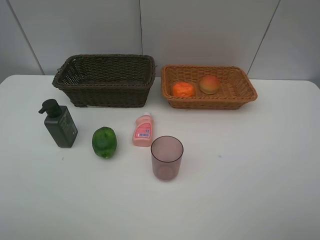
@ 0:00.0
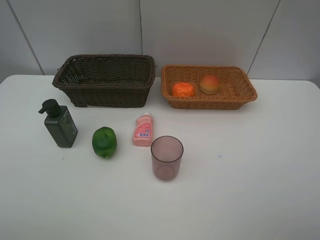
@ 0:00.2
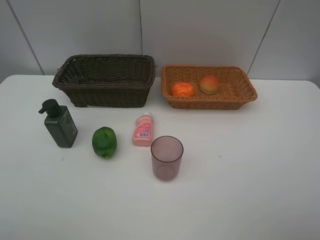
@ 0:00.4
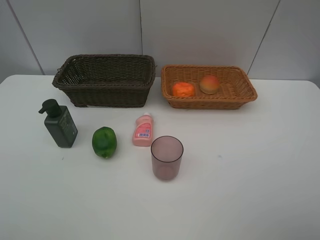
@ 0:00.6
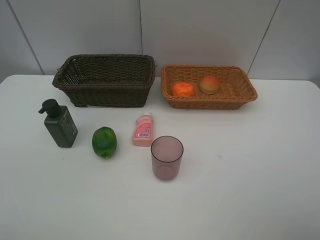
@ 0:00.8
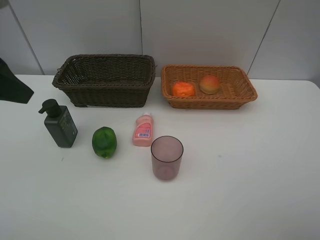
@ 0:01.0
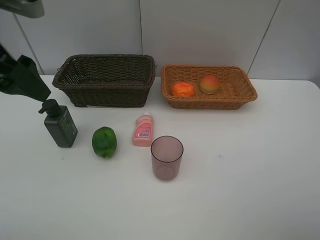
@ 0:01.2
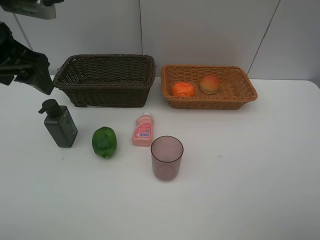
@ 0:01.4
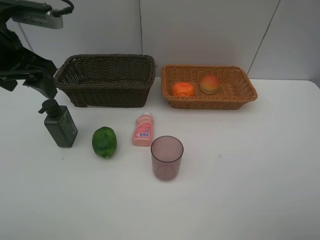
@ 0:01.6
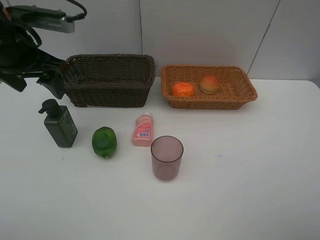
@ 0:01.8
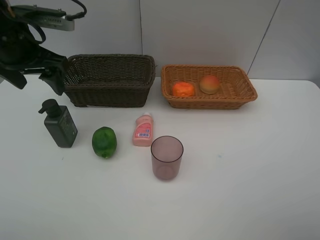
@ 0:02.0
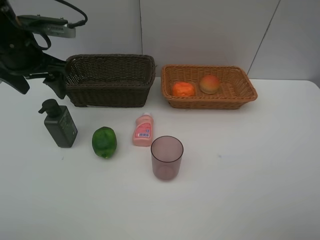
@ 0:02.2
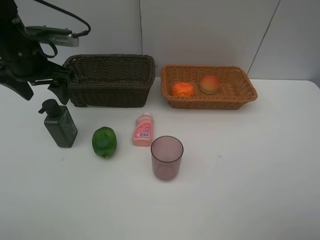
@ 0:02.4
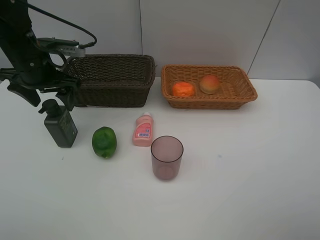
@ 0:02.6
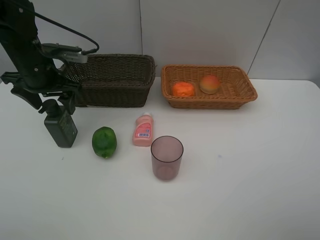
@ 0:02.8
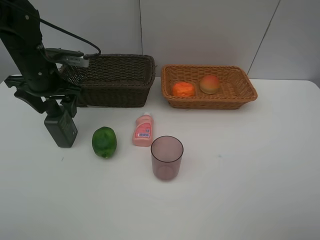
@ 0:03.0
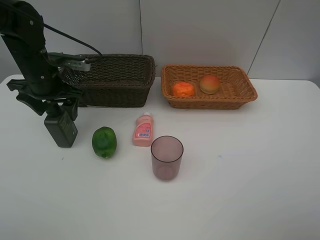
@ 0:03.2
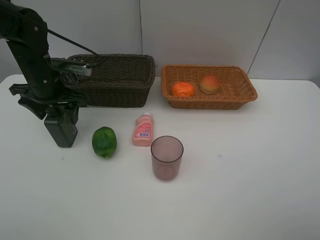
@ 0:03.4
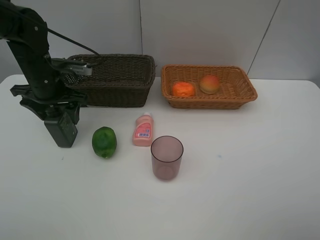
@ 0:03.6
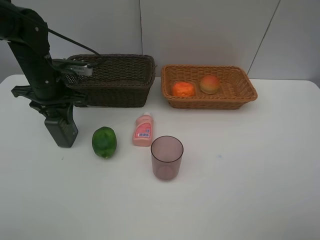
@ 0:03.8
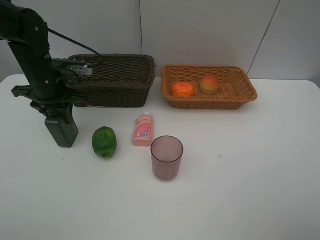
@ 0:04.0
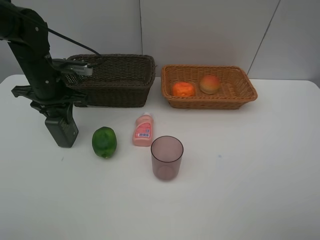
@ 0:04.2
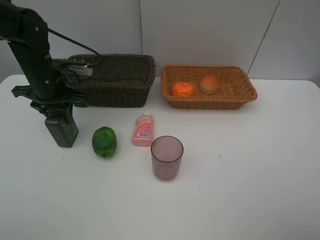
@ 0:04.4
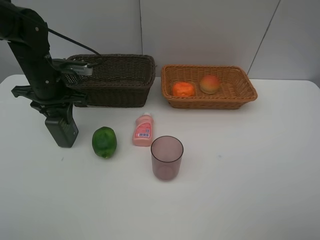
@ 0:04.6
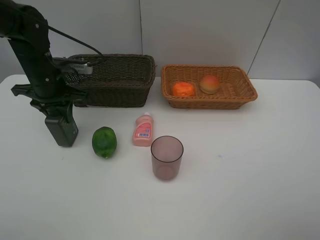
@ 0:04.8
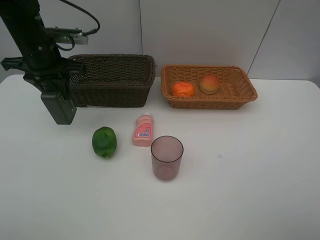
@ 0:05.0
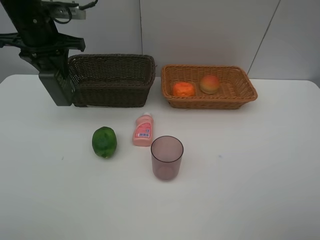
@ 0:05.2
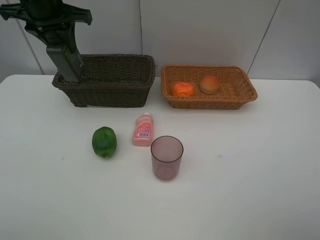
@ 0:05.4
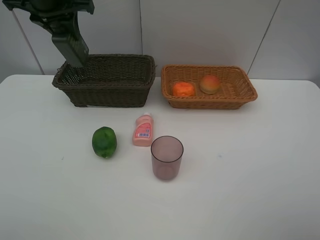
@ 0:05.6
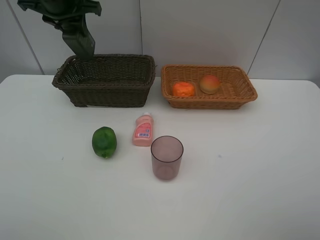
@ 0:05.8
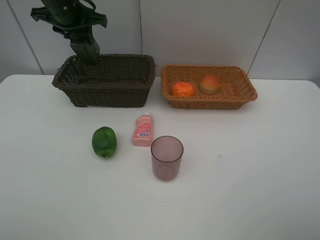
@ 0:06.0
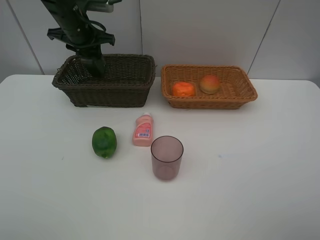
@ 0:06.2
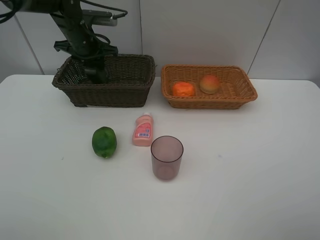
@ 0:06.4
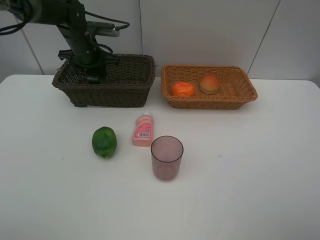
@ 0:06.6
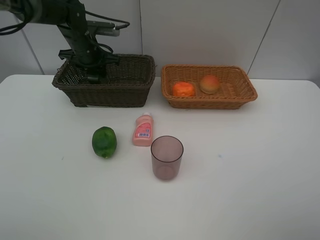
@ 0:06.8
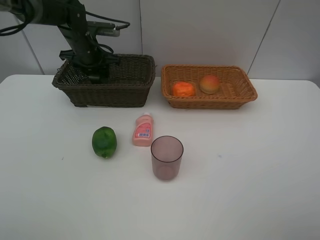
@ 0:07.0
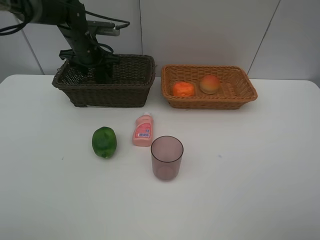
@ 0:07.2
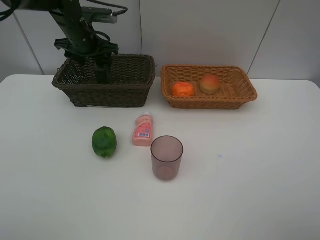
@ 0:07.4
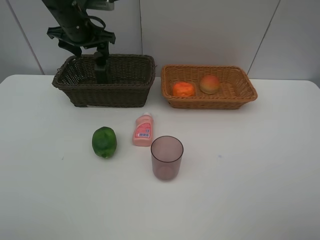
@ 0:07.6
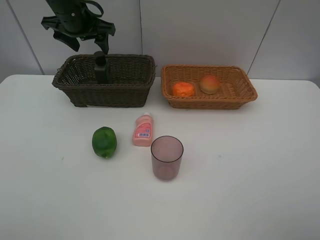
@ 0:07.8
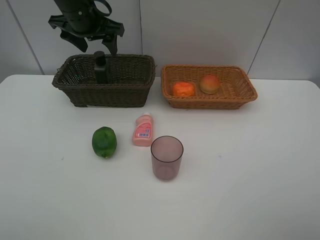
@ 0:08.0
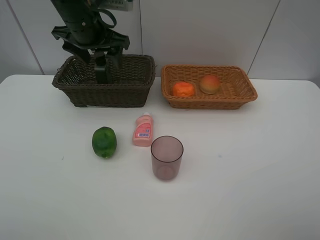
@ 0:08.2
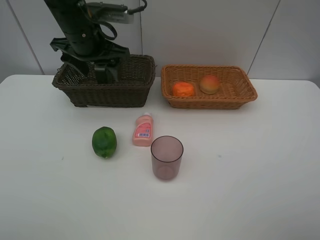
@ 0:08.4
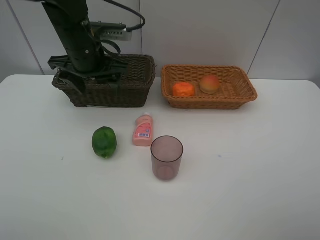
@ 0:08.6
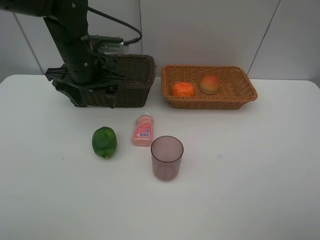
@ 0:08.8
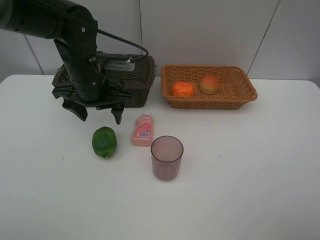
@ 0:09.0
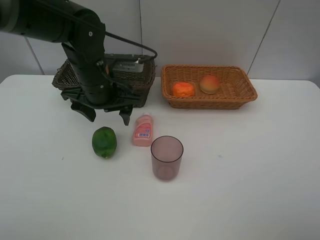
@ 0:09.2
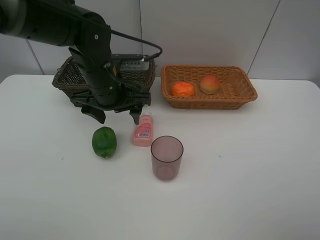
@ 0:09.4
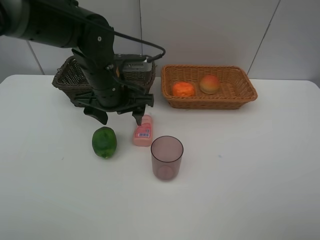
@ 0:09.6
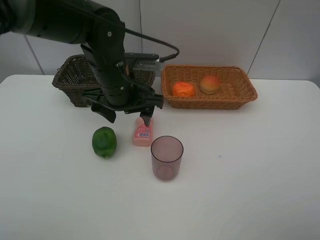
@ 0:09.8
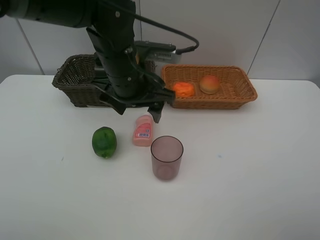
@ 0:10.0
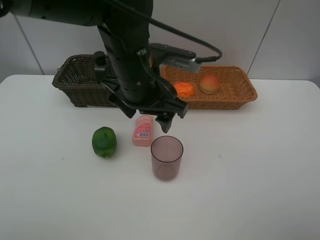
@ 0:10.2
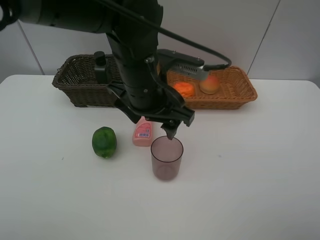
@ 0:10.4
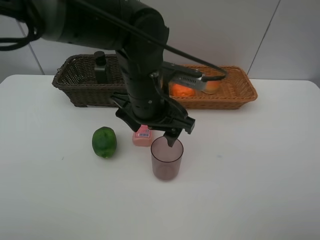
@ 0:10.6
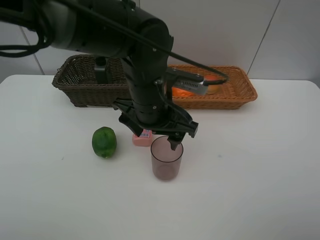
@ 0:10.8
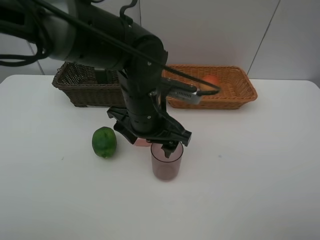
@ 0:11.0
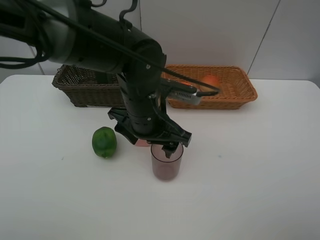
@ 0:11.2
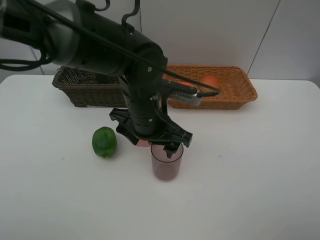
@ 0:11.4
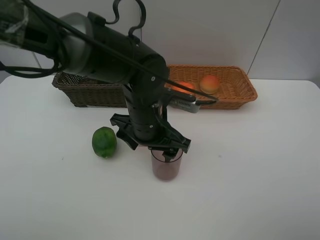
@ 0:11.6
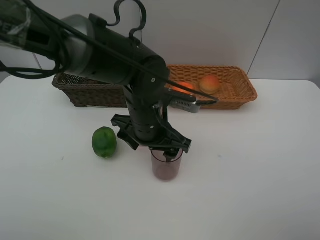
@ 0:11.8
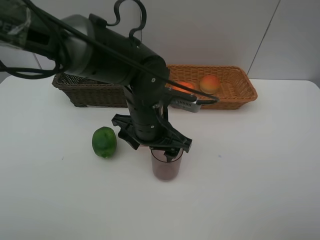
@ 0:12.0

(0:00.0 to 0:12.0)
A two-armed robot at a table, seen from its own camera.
Task of the whole recording: place multiple objects separately in different baskets.
0:00.0 - 0:01.6: The left gripper heads forward, covering approximately 30 cm.
0:01.6 - 0:03.0: The left gripper goes about 15 cm downward and forward.
0:03.0 - 0:04.4: The left gripper closes.
0:04.4 - 0:06.0: The left gripper heads upward and forward, covering roughly 15 cm.
0:06.0 - 0:07.6: The left gripper travels downward and back again, some 10 cm each way, and opens up.
0:07.6 - 0:09.0: The left gripper travels backward, to the right and downward by roughly 15 cm.
0:09.0 - 0:10.4: The left gripper moves to the right and backward, roughly 10 cm.
0:10.4 - 0:12.0: The left gripper is displaced downward by approximately 5 cm.

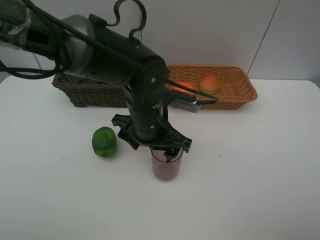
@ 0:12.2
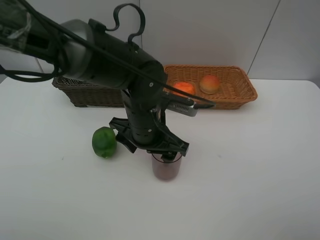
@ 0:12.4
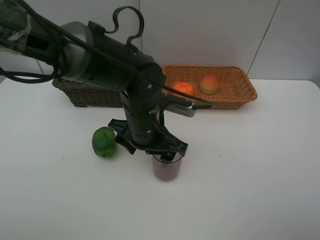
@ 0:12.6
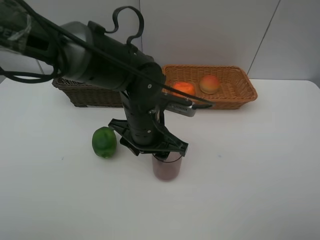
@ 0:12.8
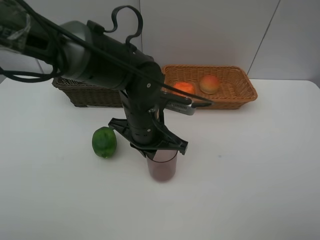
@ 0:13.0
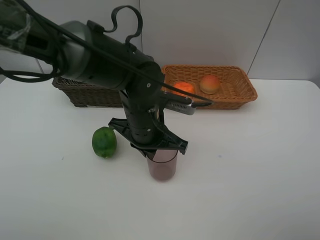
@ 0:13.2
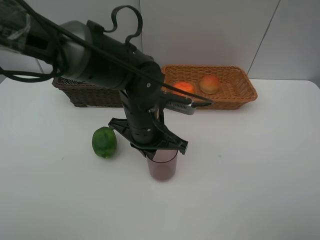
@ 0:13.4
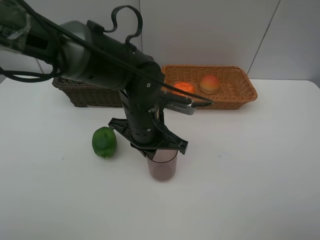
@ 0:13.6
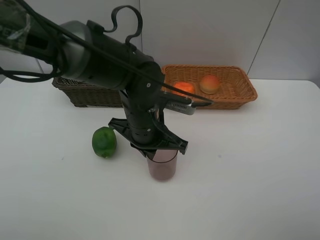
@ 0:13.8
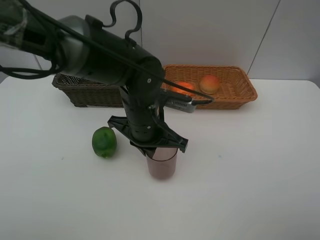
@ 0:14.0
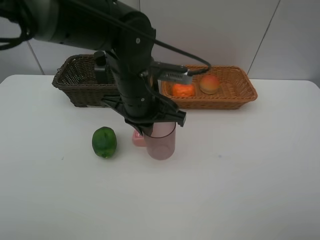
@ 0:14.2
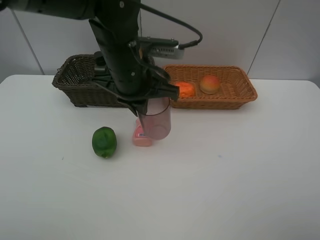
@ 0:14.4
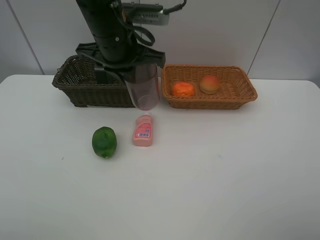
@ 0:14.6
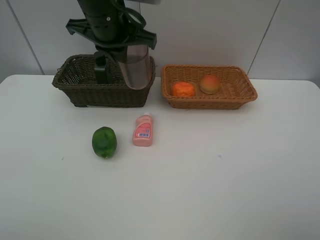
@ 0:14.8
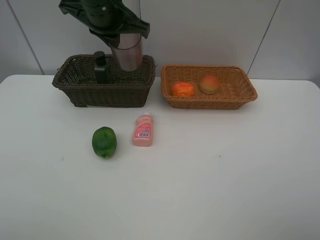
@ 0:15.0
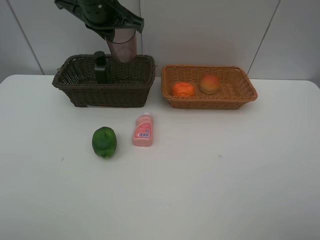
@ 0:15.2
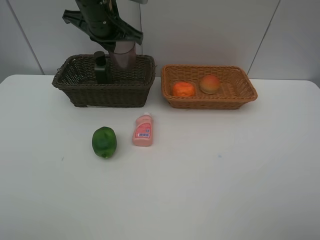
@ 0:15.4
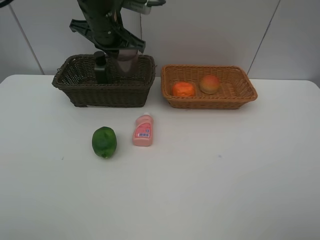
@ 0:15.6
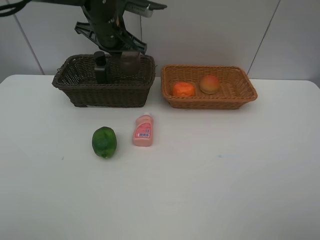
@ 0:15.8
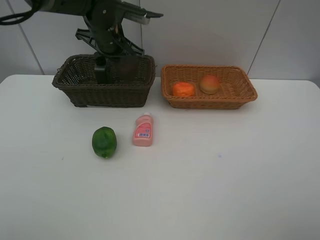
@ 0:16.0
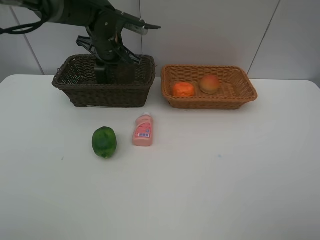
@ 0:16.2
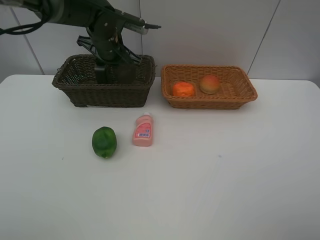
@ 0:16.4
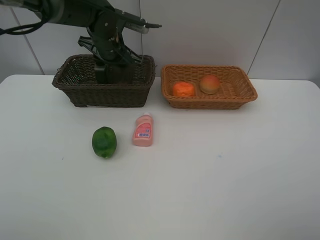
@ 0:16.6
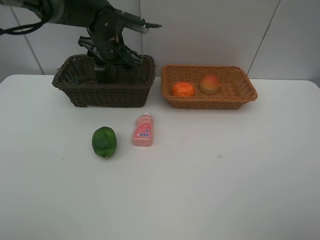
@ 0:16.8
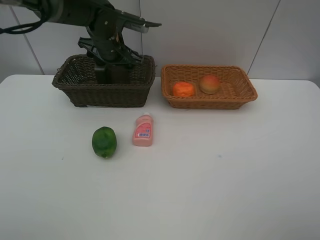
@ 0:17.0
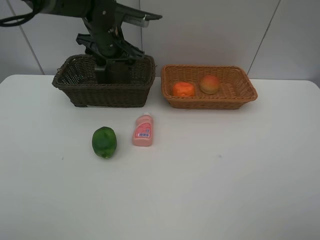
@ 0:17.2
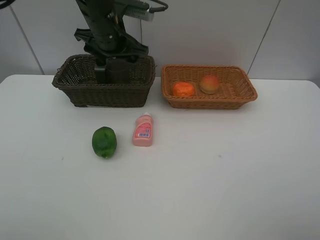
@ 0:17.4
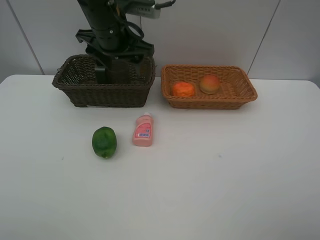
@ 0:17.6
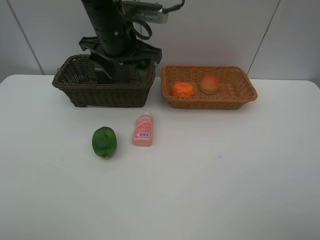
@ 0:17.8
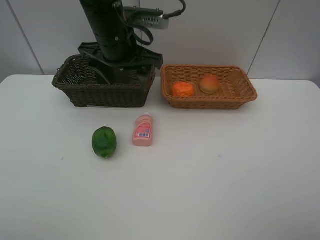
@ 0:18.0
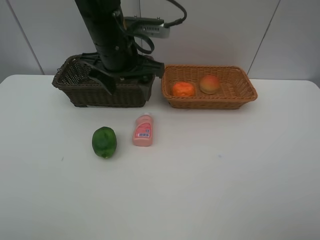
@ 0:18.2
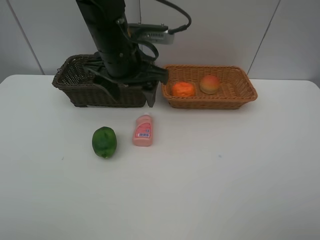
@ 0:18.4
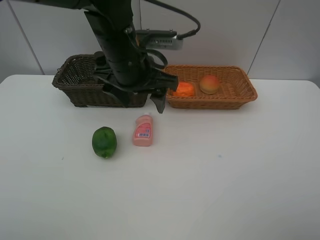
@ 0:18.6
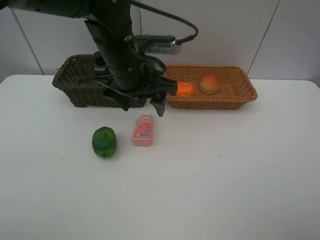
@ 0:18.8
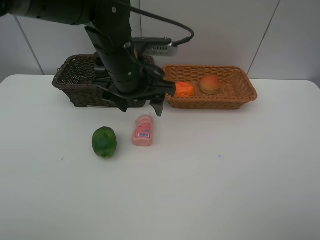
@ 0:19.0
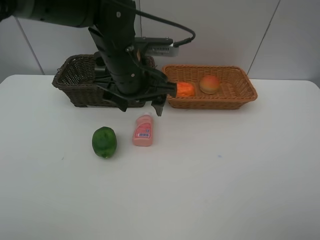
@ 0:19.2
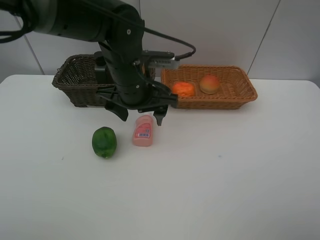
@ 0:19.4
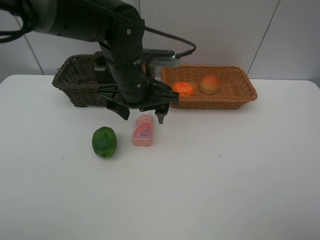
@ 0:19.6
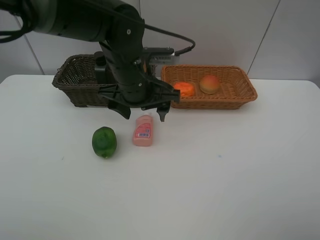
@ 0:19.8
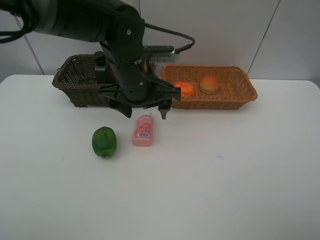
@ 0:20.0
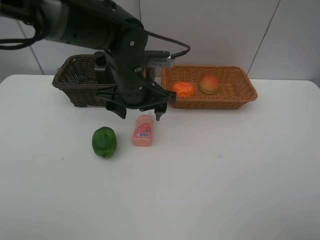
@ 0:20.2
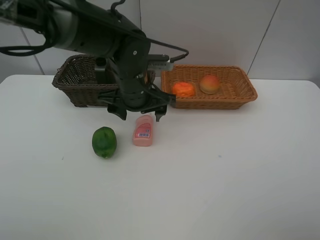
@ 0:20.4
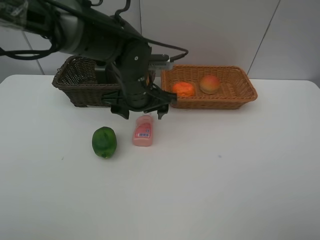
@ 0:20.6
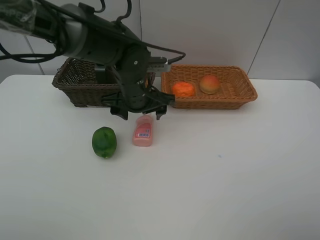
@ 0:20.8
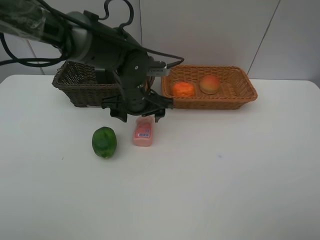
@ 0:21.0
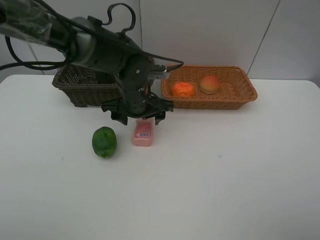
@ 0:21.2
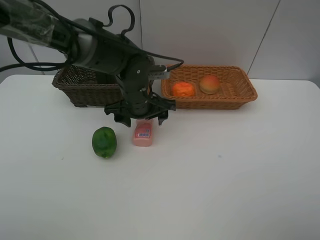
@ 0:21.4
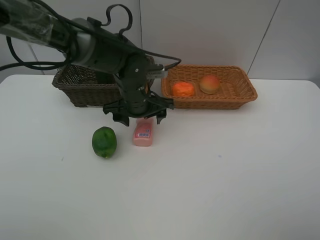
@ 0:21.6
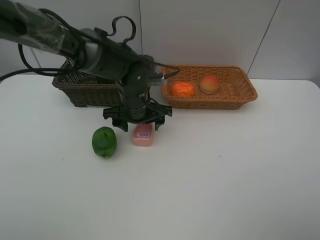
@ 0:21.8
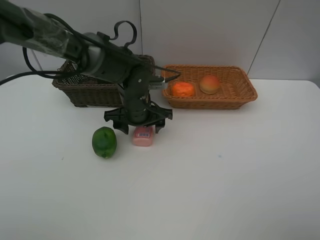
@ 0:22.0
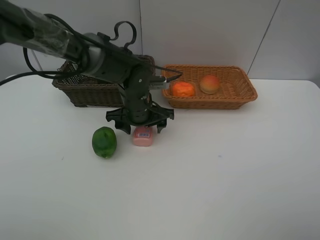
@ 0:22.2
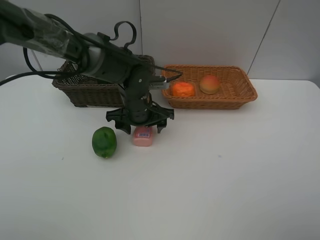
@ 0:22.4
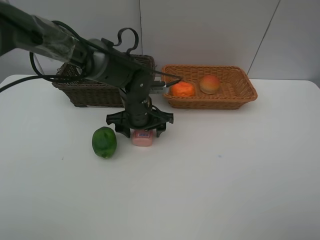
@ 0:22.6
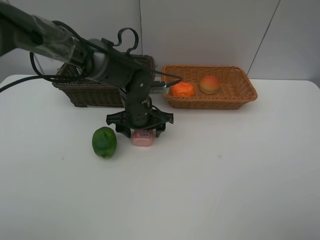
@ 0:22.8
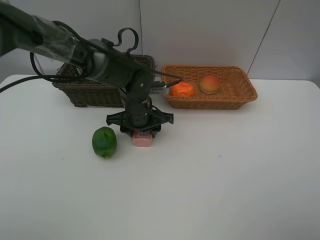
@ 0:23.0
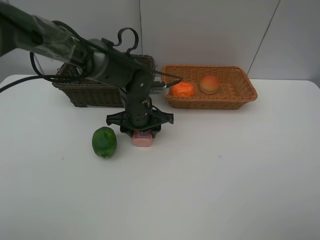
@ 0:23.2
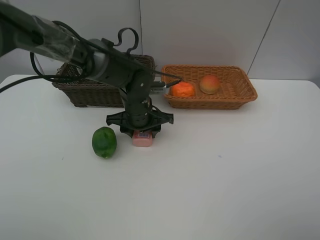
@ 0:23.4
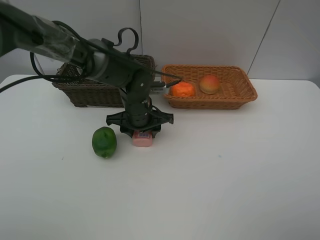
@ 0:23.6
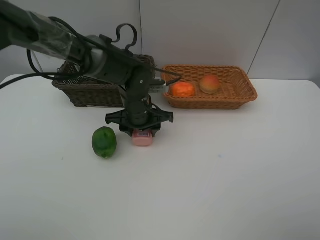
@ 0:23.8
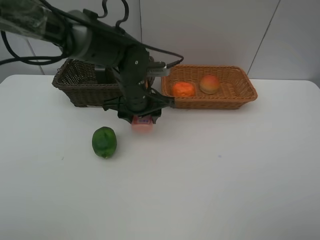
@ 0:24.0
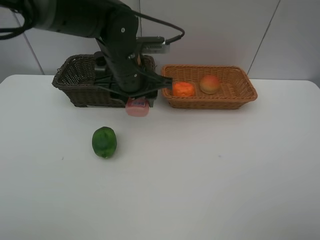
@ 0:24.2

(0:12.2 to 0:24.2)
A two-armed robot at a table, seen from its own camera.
Task of the whole recording: place multiple objects separately in different baskets.
0:12.2 - 0:13.8: The left gripper closes its fingers.
0:13.8 - 0:15.2: The left gripper heads upward, forward and to the left, covering roughly 20 cm.
0:15.2 - 0:16.6: The left gripper shifts roughly 10 cm downward and forward, and opens.
0:16.6 - 0:18.2: The left gripper travels backward and upward by approximately 15 cm.
0:18.2 - 0:19.8: The left gripper travels downward by about 5 cm.
0:19.8 - 0:21.2: The left gripper goes roughly 5 cm downward.
0:21.2 - 0:22.6: The grippers stay close to where they were, moving slightly.
0:22.6 - 0:24.2: The left gripper goes some 10 cm upward.
